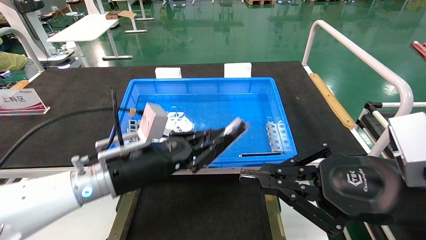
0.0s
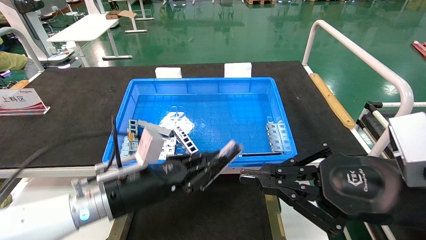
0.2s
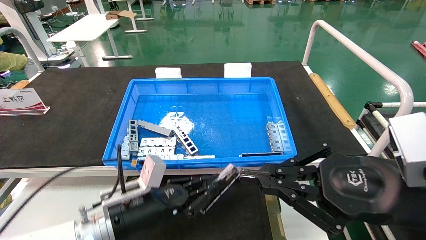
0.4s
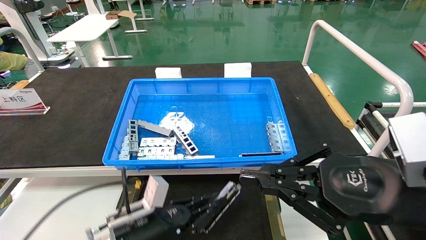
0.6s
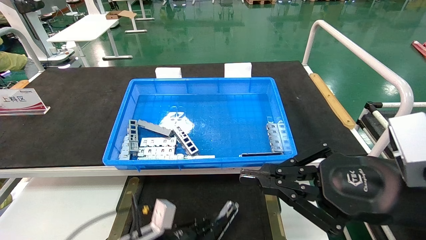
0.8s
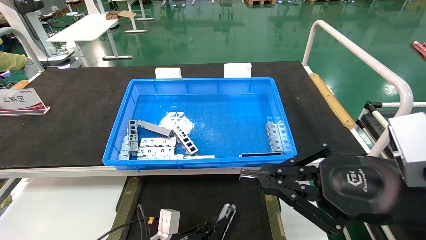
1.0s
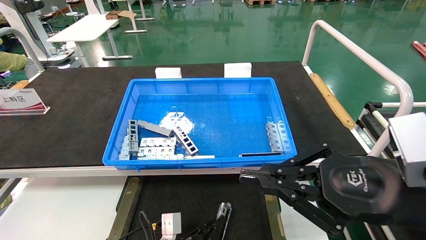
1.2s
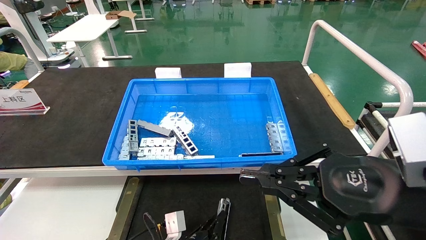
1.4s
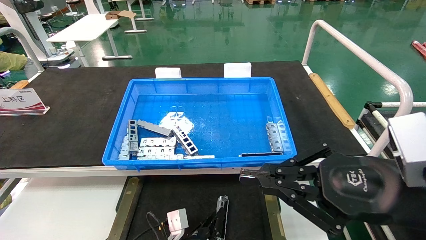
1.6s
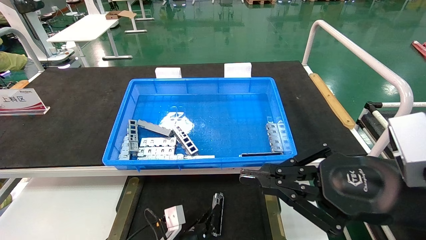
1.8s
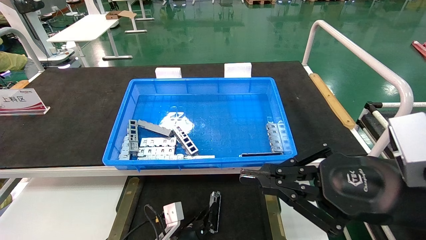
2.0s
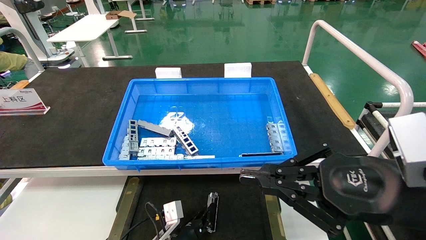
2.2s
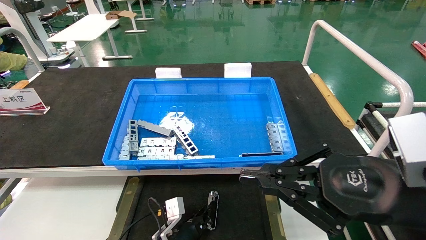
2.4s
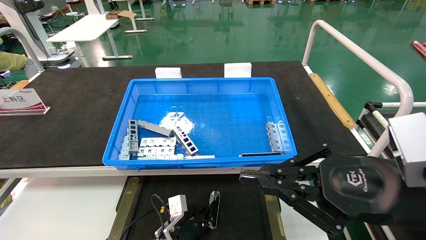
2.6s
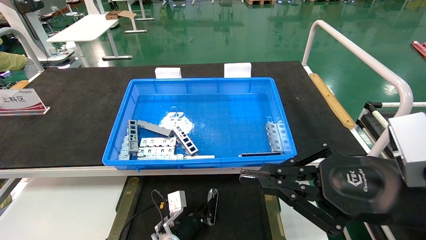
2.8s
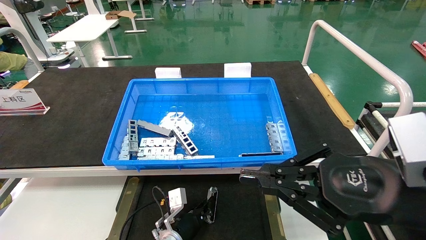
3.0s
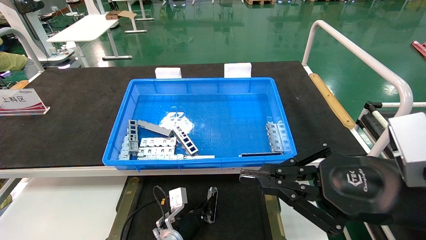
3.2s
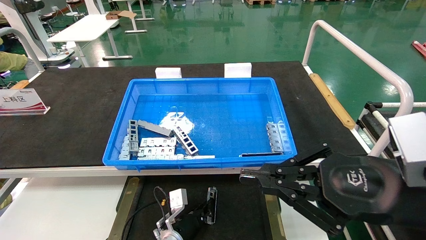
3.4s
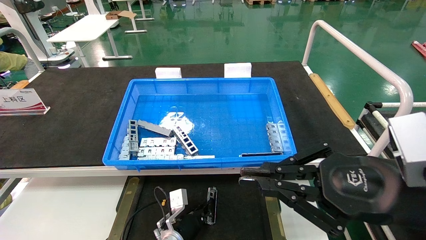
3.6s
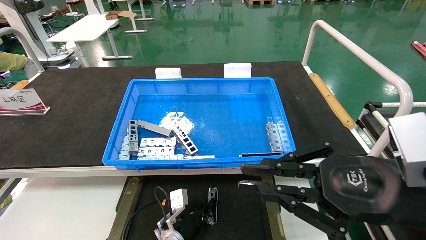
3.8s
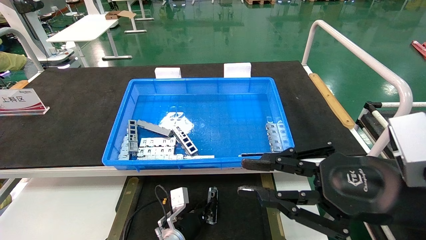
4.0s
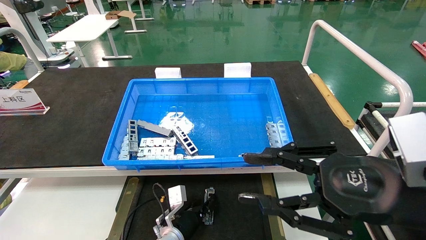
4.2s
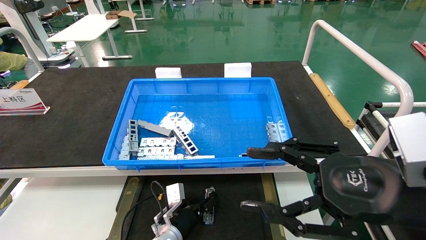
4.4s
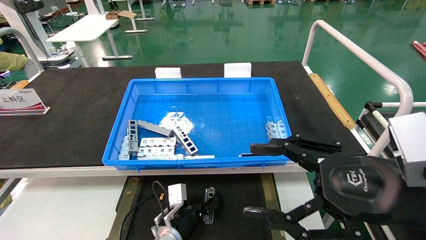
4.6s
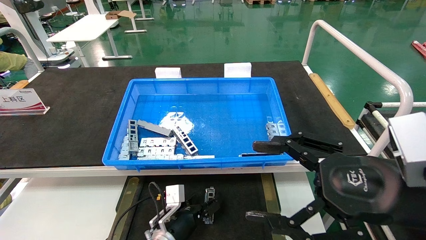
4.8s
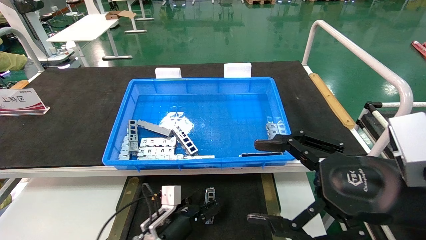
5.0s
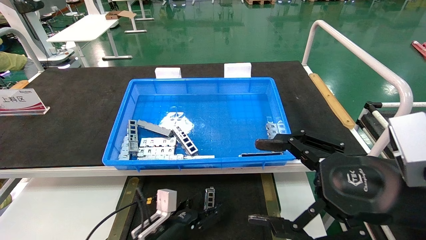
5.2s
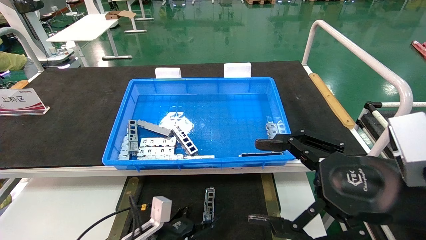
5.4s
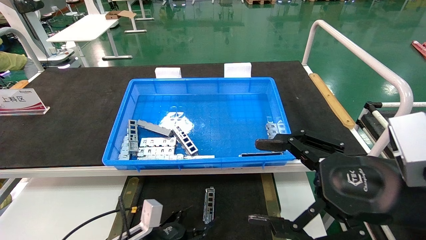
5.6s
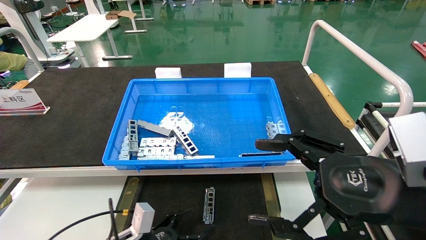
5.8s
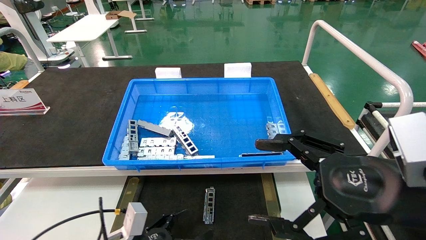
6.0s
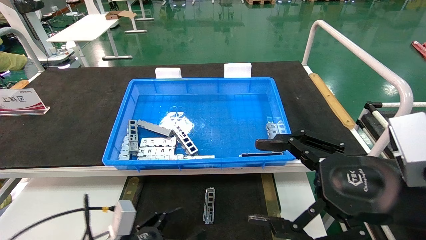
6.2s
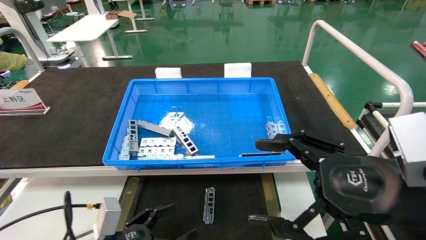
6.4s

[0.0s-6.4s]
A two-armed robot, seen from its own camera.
Task of the whole recording: Grasp the part with one hand and place it on the black container.
Step, 0.0s to 4.4s: Place the front USB bracket into the box.
0.0s to 1.6s: The left gripper travels downward by about 25 cm.
1.6s to 3.2s: The left gripper moves forward, approximately 10 cm.
3.2s to 4.8s: The right gripper opens. The left gripper opens its fingers.
4.8s to 6.4s: The left gripper goes some 20 cm backward, to the left and upward.

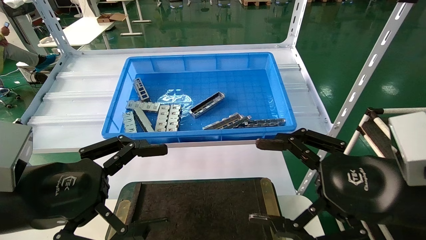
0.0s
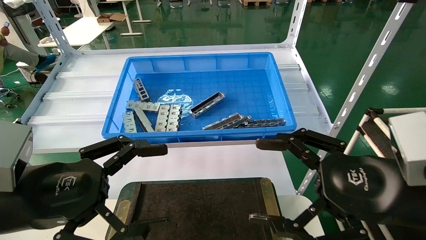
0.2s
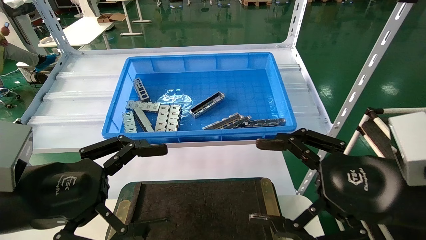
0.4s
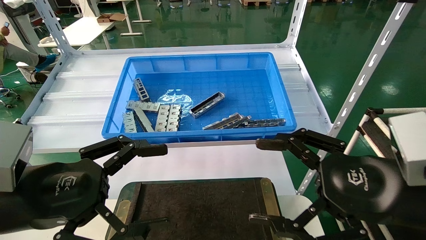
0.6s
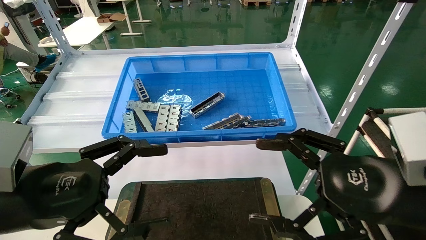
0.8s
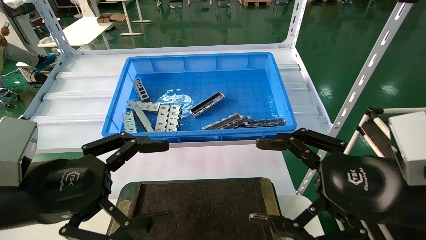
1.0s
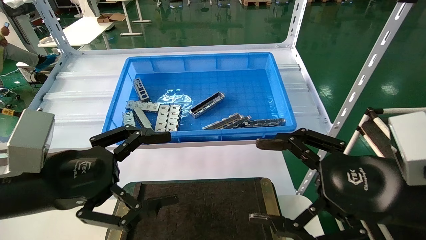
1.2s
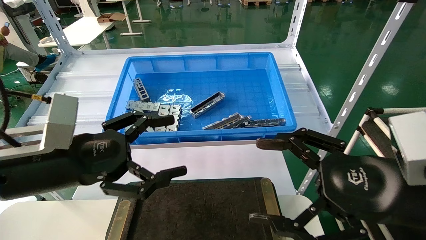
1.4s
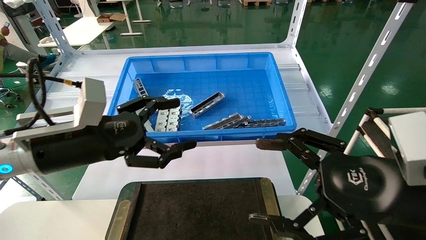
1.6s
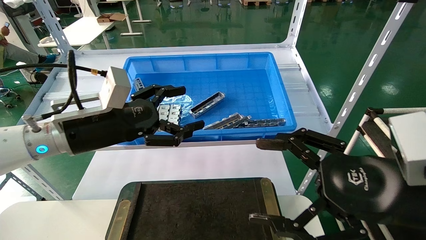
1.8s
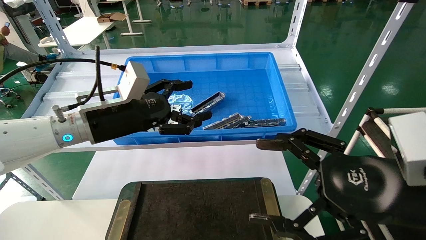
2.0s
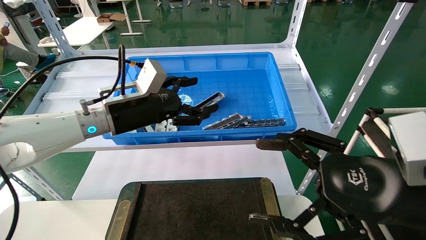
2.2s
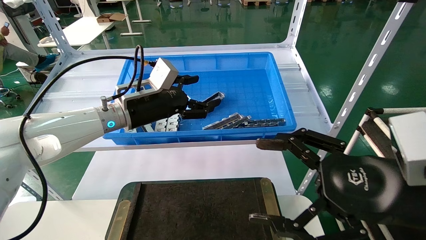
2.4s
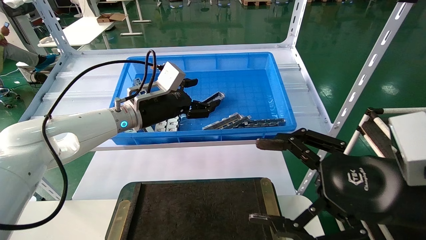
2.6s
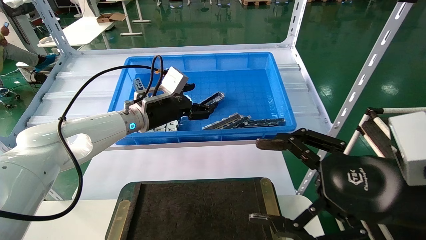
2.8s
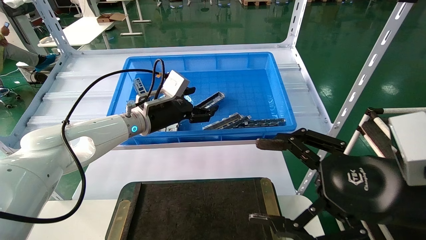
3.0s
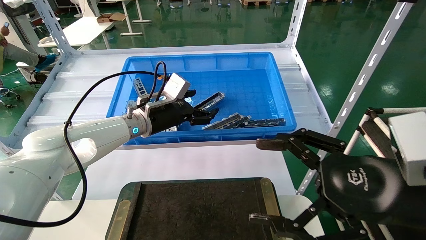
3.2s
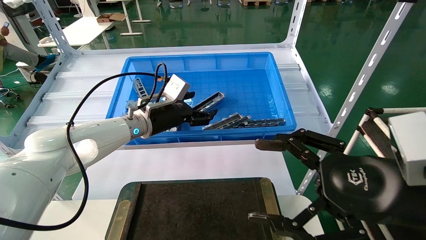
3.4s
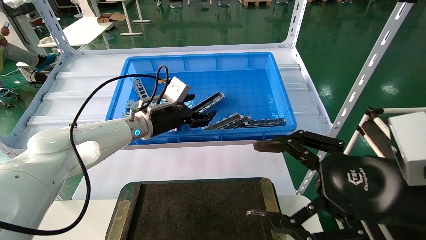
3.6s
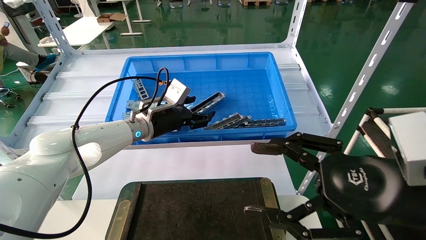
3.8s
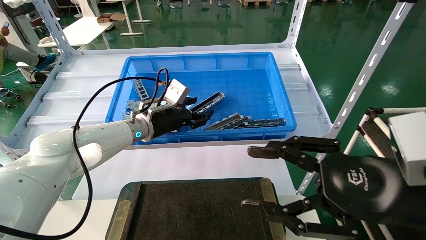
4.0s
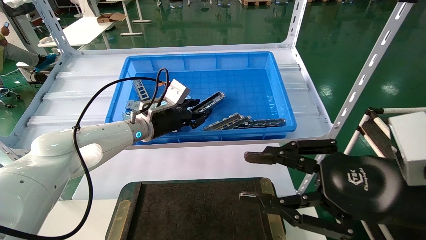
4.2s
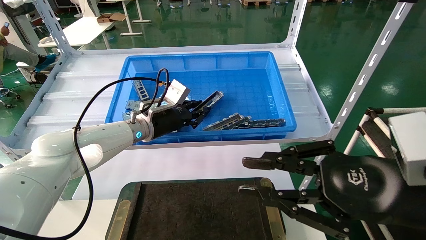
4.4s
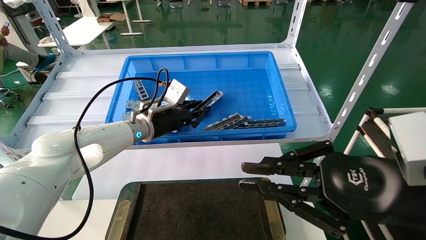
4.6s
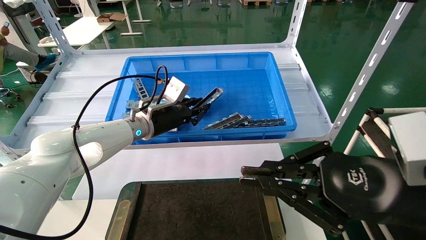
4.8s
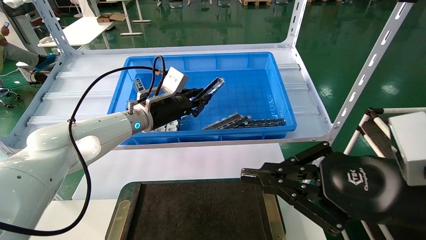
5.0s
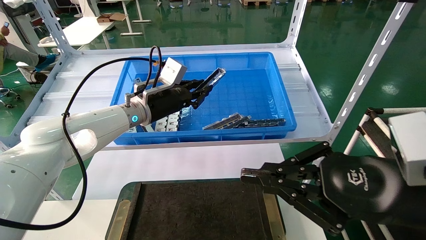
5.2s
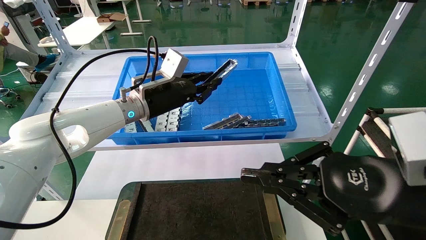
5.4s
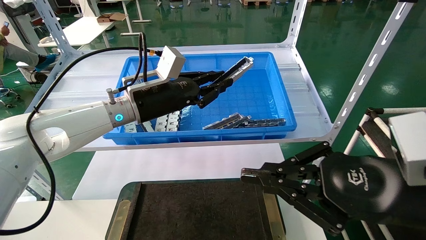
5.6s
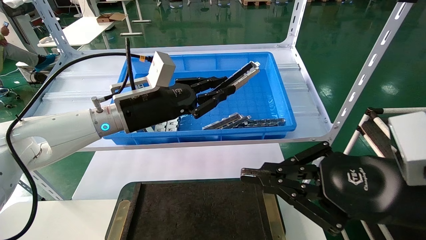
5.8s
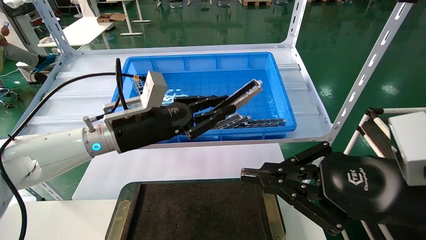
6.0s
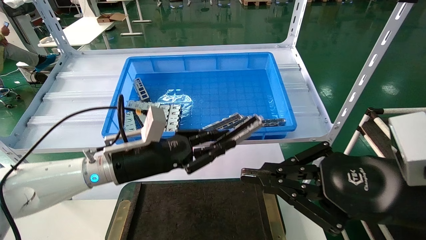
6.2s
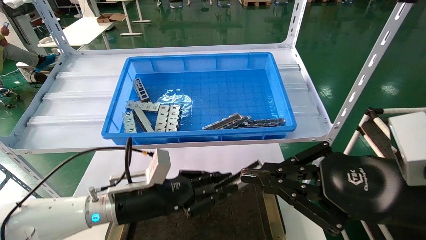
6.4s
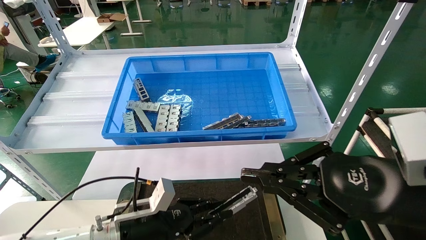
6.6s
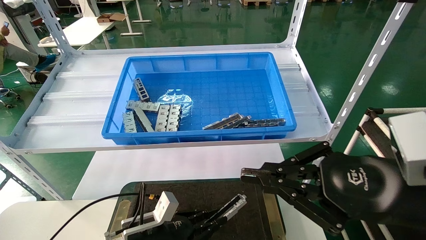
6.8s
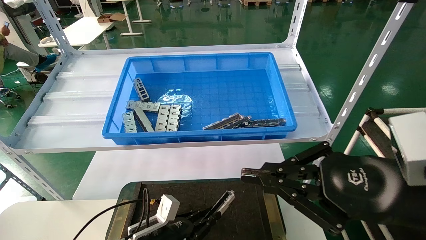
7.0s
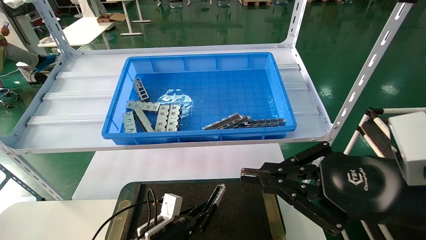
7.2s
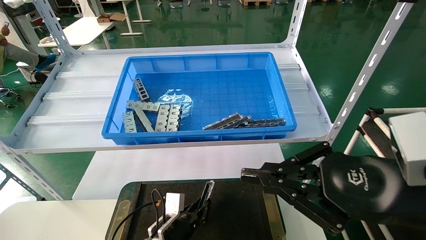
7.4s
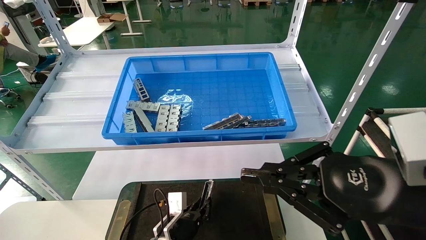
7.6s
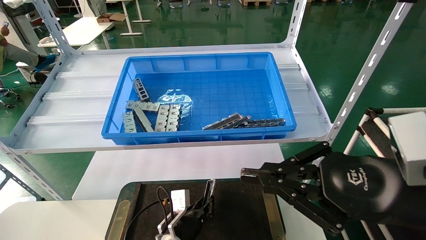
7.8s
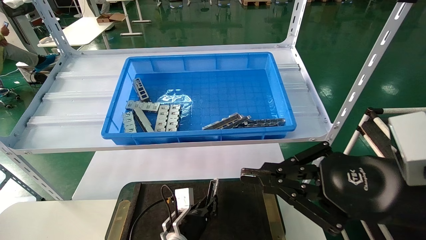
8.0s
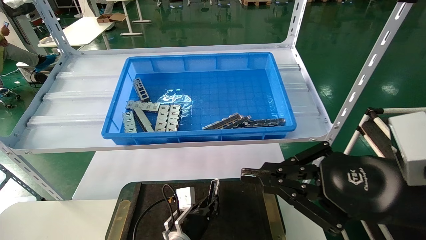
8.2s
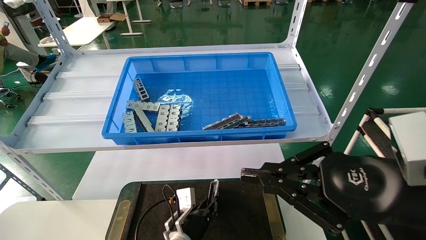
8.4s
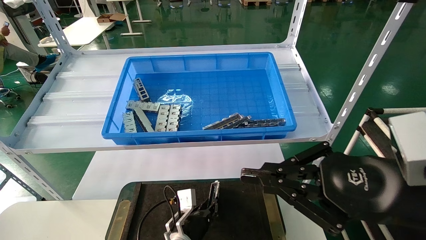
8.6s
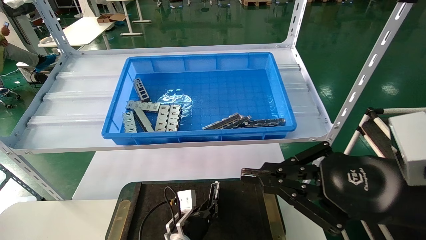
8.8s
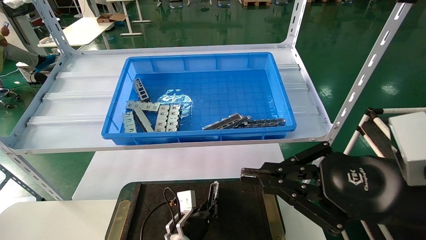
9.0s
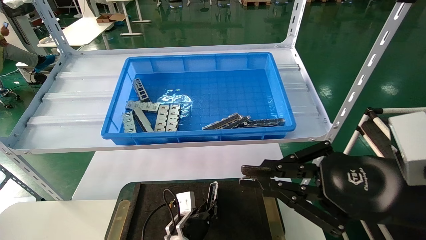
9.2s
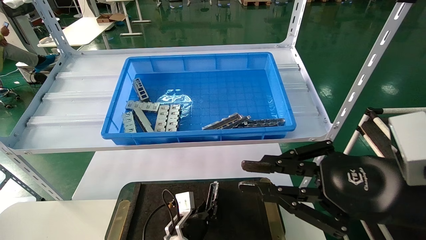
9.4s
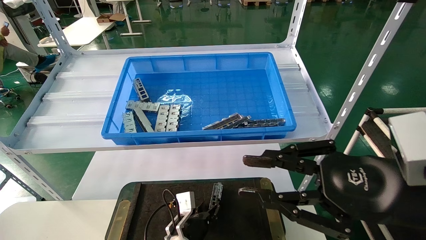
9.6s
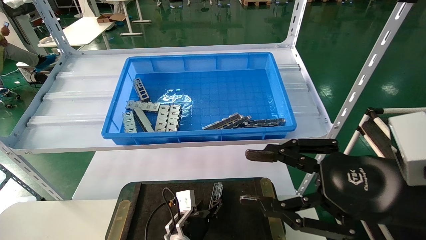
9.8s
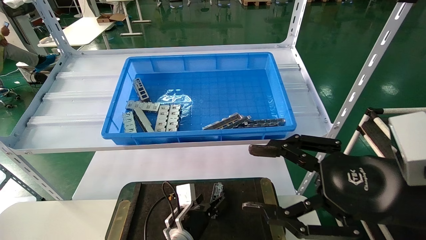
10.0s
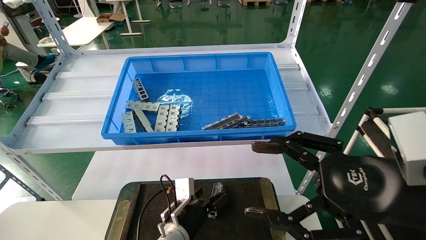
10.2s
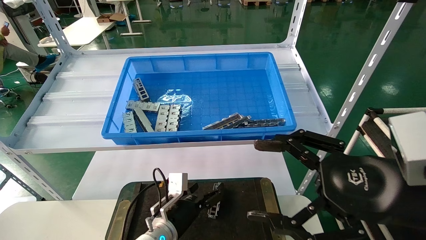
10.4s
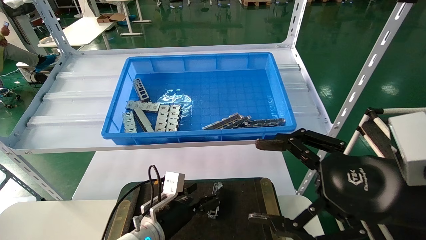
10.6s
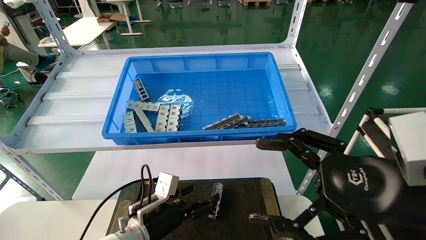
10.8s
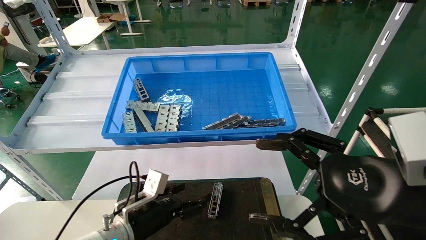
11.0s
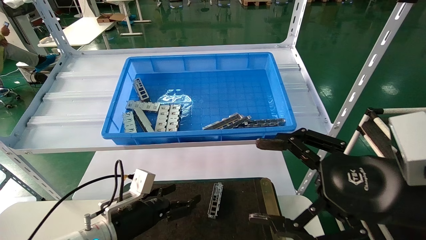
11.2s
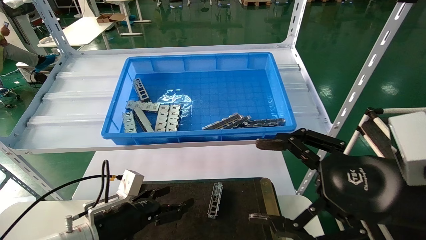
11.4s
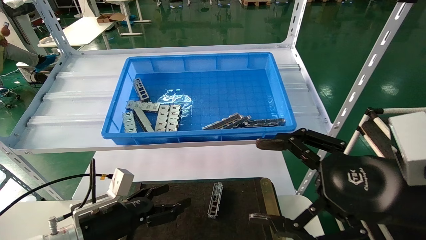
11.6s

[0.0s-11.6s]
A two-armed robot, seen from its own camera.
Task of the whole recording: Grasp the part with one hand and place it on the black container.
Step, 1.2s to 4.4s: Pick up the front USB bracket from the feeding area.
Step, 4.6s to 9.2s: Place the front USB bracket into the box.
0.0s to 1.4s: The left gripper goes approximately 5 cm forward.
1.4s to 2.8s: The left gripper heads forward and to the right, covering roughly 25 cm.
2.8s to 4.4s: The right gripper closes its fingers, while the left gripper closes.
4.4s to 5.8s: The left gripper travels backward by about 10 cm. The right gripper closes its fingers.
5.8s to 7.2s: The left gripper shifts roughly 30 cm downward.
7.2s to 8.8s: The left gripper shifts approximately 5 cm to the right.
8.8s to 10.2s: The left gripper opens its fingers. Meanwhile the right gripper opens.
10.2s to 11.6s: The left gripper goes roughly 20 cm to the left, upward and backward.
